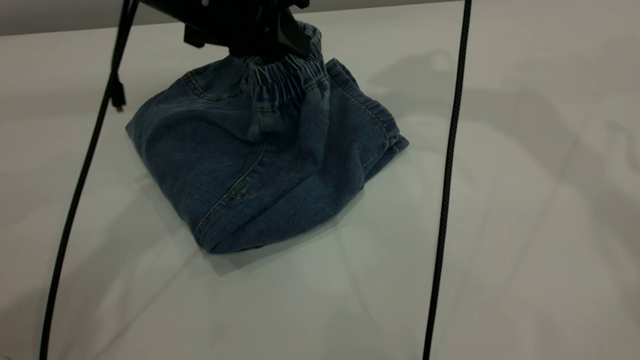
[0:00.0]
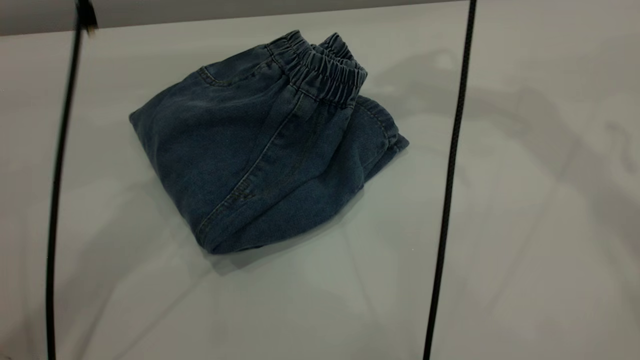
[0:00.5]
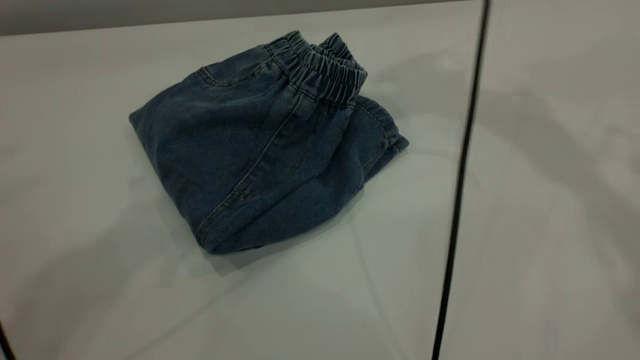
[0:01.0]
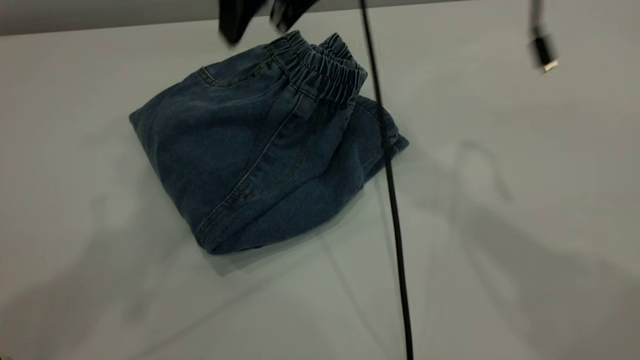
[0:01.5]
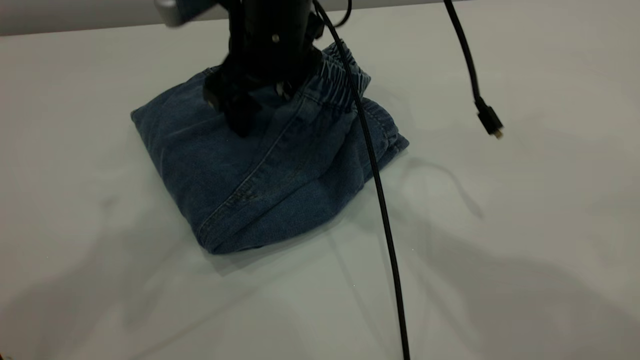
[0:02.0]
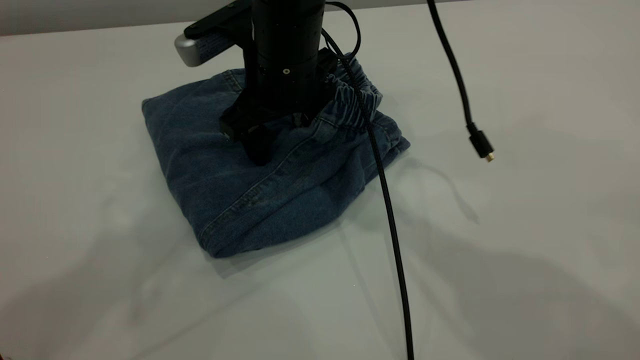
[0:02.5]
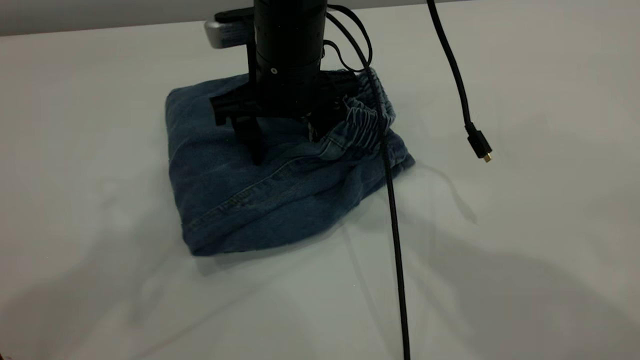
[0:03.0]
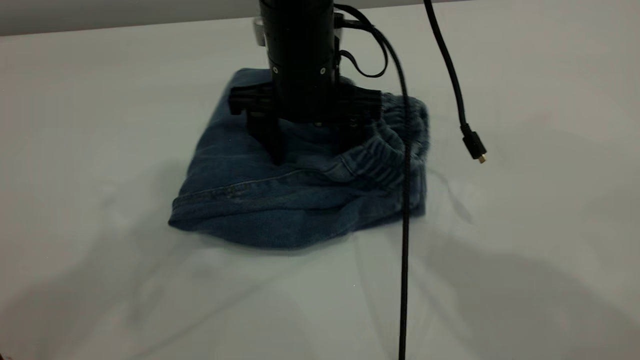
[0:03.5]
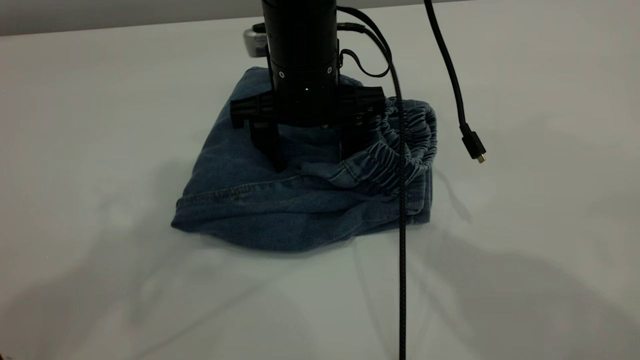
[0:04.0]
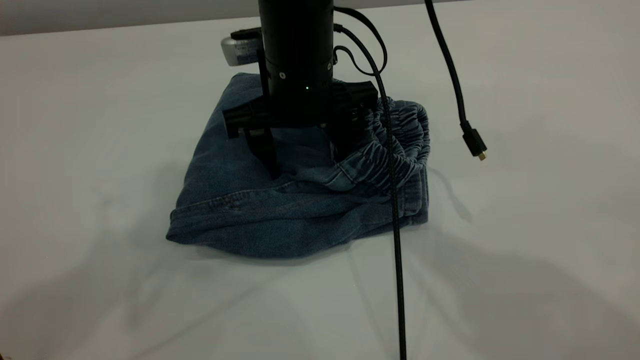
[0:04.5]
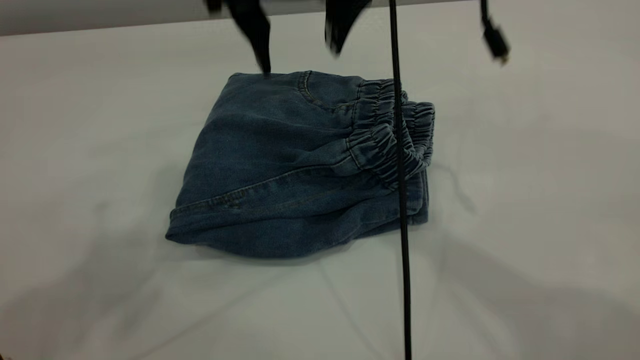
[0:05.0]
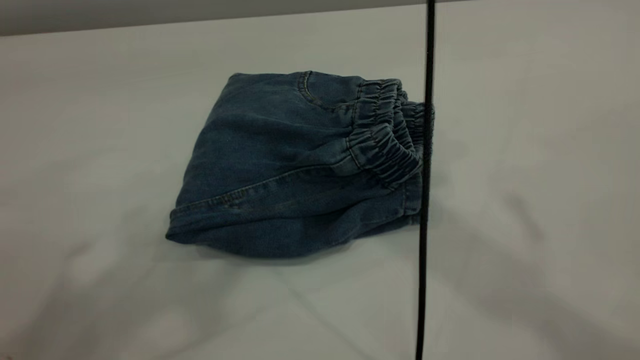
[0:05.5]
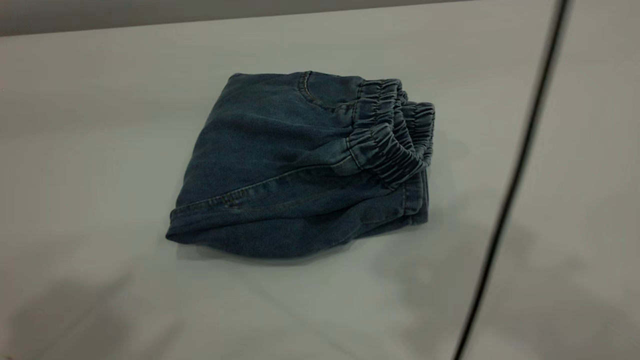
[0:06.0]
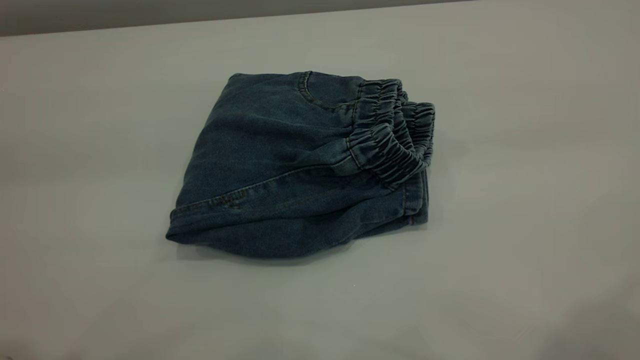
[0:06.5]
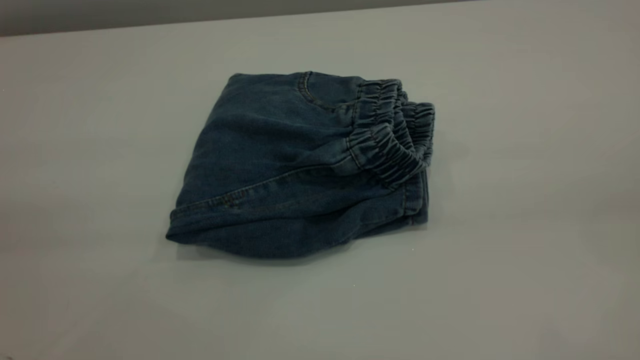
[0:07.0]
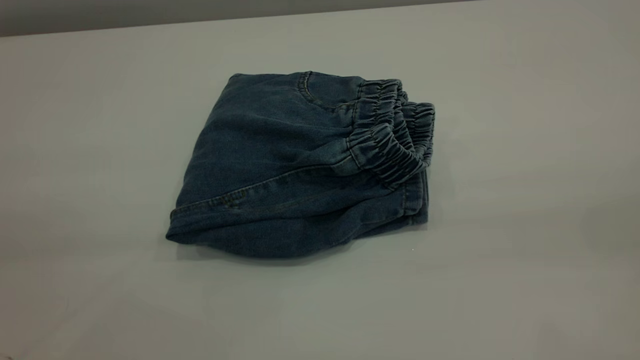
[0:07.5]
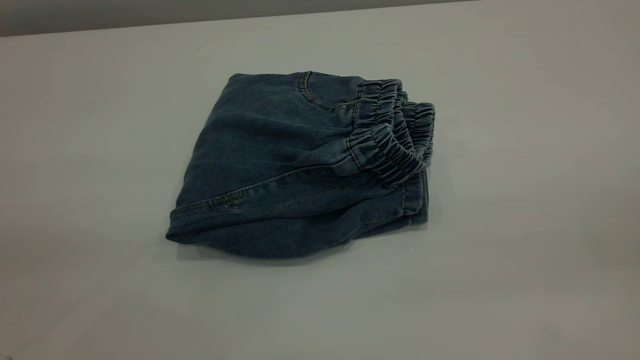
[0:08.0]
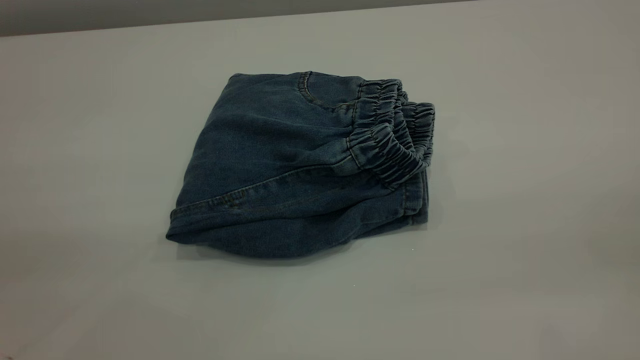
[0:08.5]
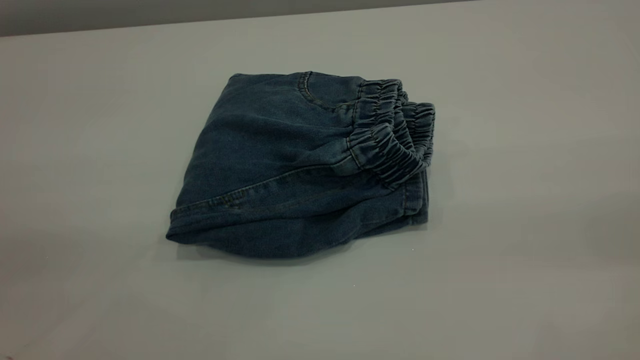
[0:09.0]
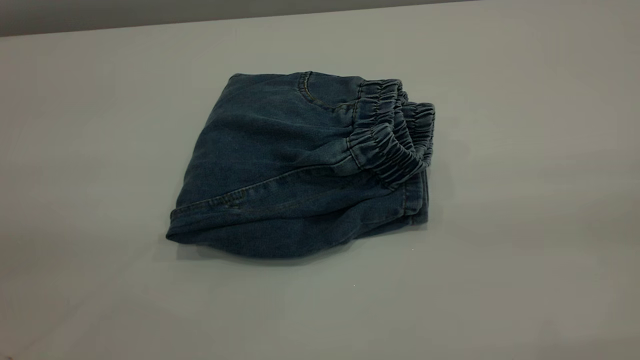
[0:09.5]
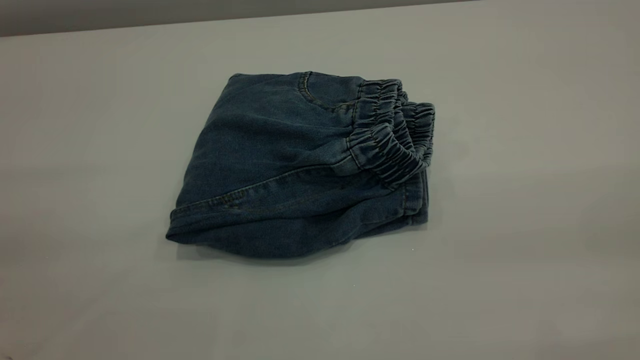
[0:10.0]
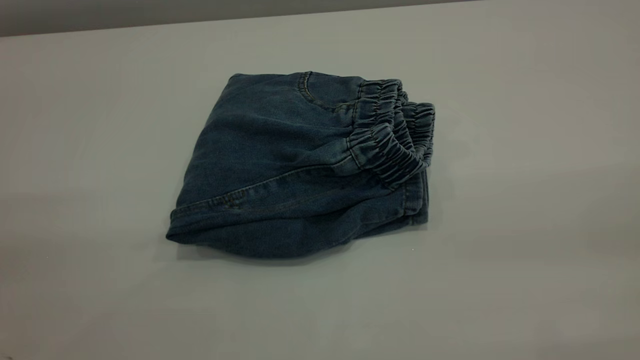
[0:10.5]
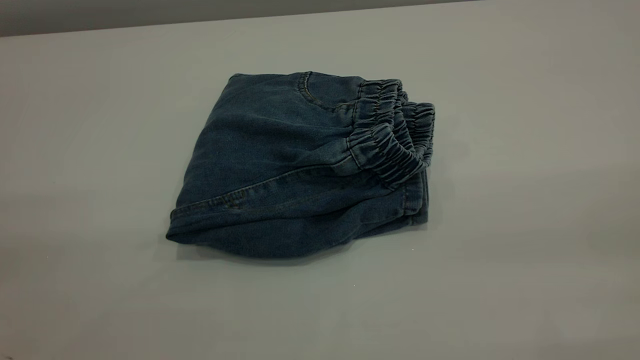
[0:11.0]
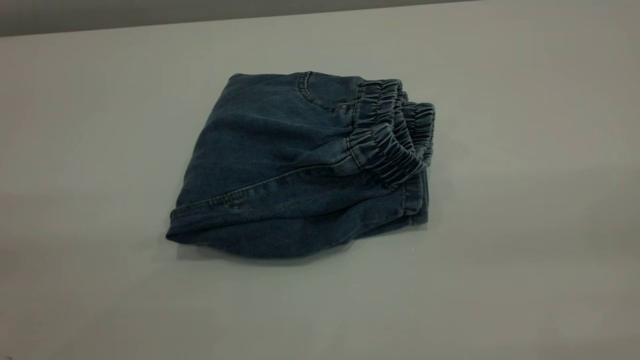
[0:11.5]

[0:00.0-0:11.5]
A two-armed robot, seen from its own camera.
0:00.0 to 0:02.0: The left gripper goes some 30 cm upward and backward, and opens. The right gripper is displaced downward and to the left by some 25 cm.
0:04.0 to 0:06.0: The right gripper shifts about 40 cm upward, backward and to the right. The left gripper shifts some 15 cm backward and to the left.
0:06.0 to 0:07.5: The right gripper shifts roughly 25 cm backward, to the right and downward.
